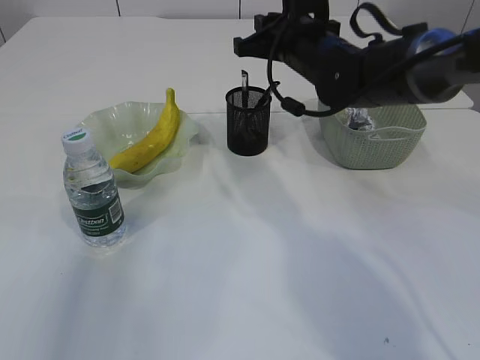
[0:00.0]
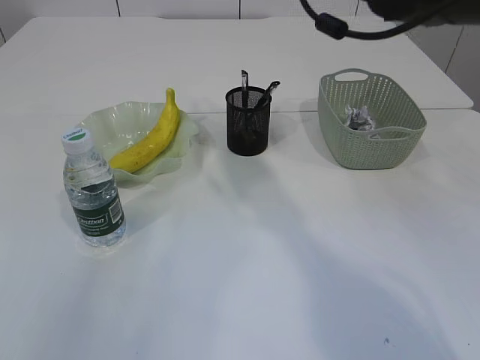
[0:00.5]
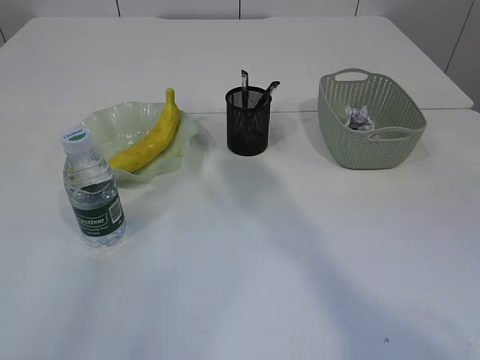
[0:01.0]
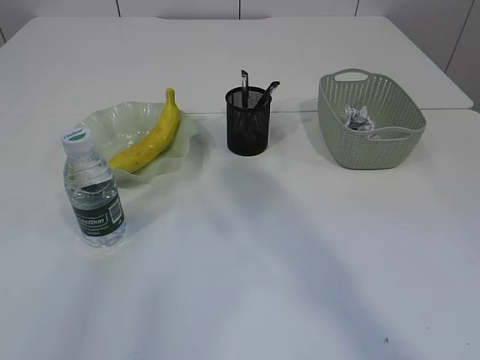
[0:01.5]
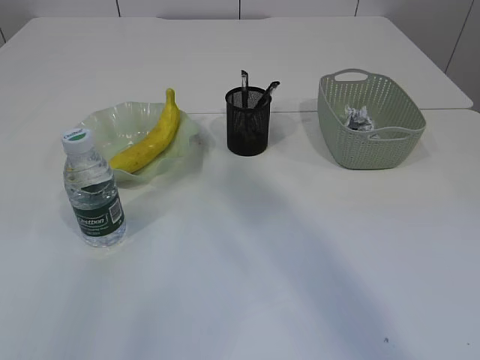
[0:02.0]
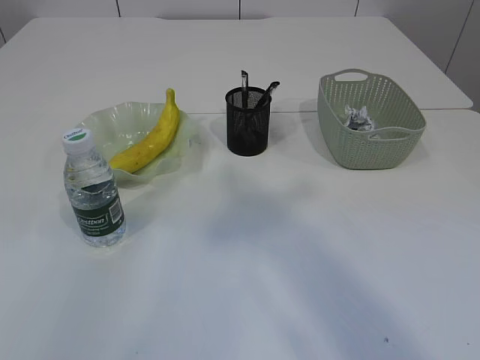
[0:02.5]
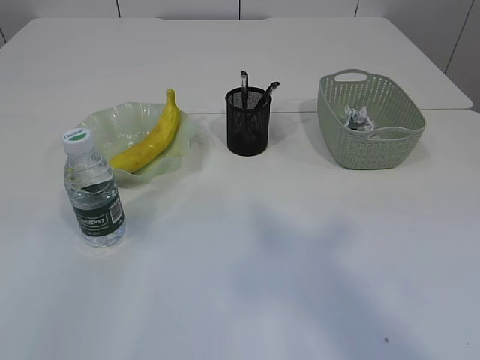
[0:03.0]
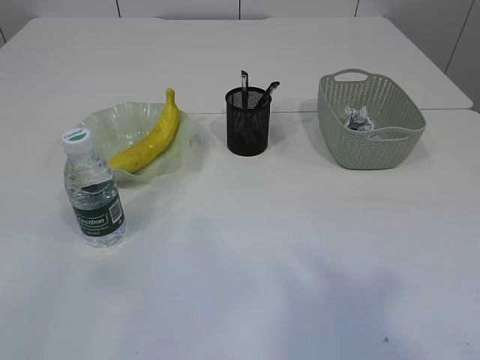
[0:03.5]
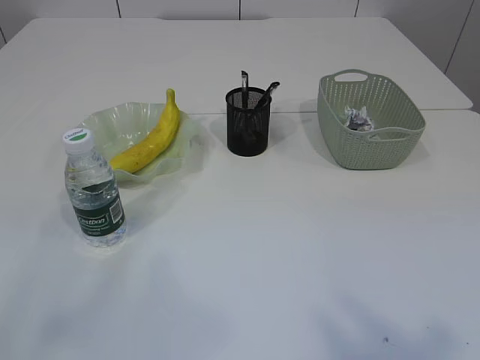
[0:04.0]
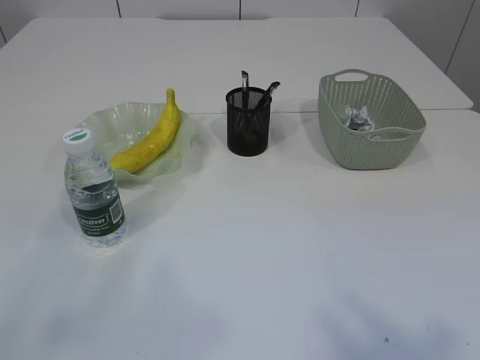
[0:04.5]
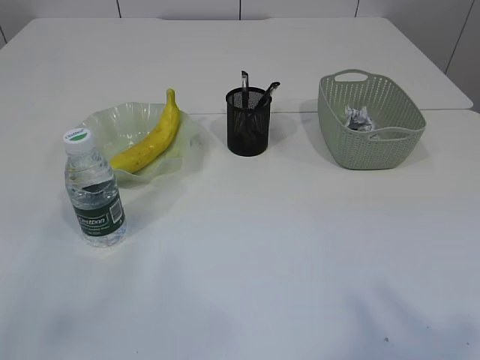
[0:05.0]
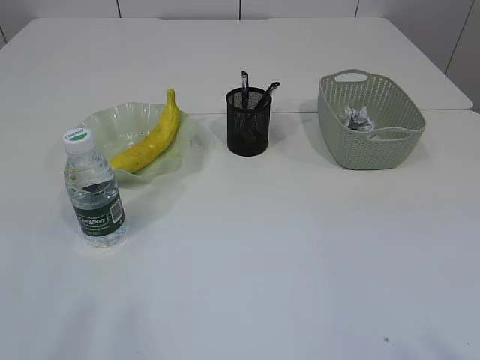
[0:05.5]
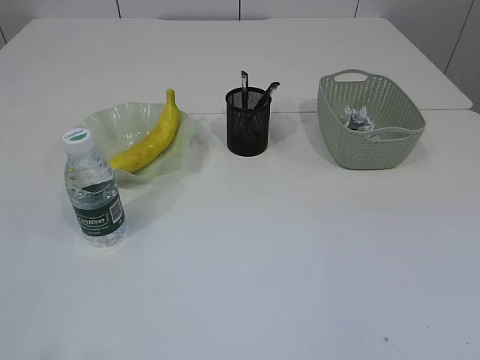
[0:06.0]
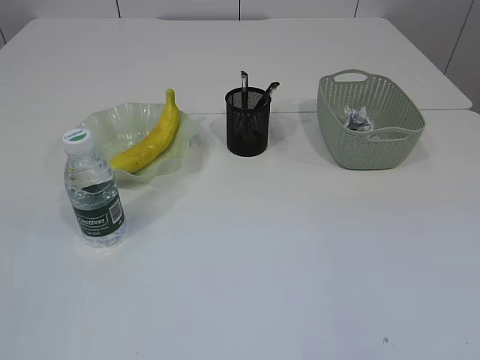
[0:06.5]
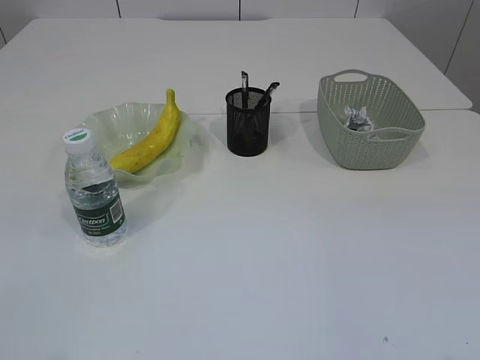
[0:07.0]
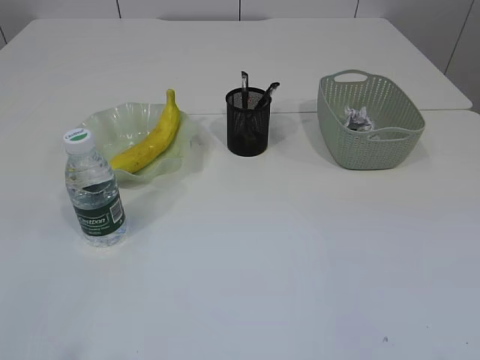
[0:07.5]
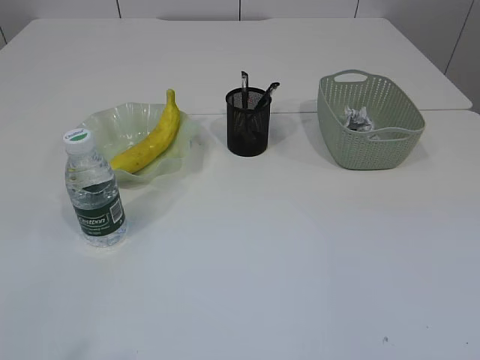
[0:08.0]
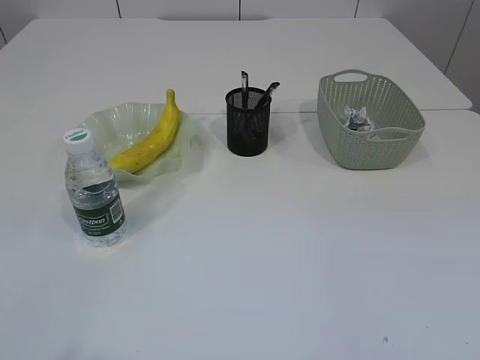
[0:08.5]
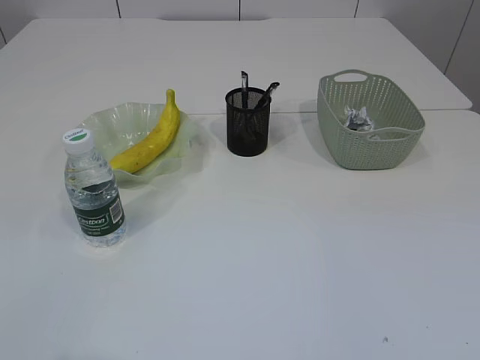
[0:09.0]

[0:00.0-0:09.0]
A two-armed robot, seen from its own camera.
0:00.0 to 0:02.0: The left gripper travels backward and upward by approximately 10 cm. Meanwhile the right gripper travels upward and backward by about 35 cm.
0:02.0 to 0:04.5: The left gripper travels backward by some 15 cm. Meanwhile the right gripper travels backward and to the right by some 25 cm, and opens.

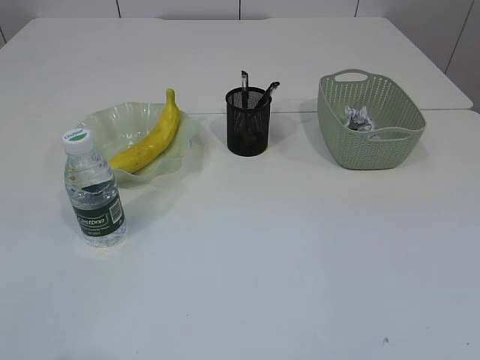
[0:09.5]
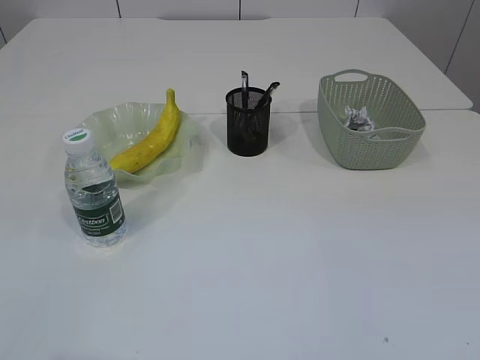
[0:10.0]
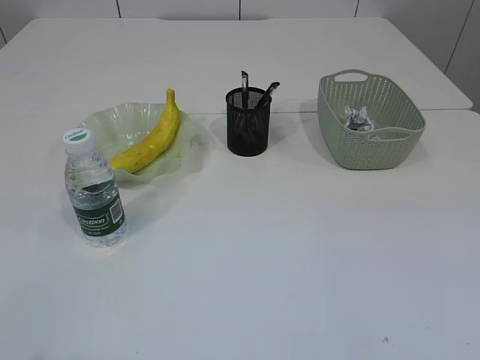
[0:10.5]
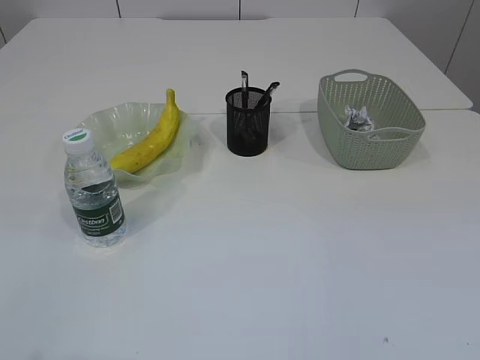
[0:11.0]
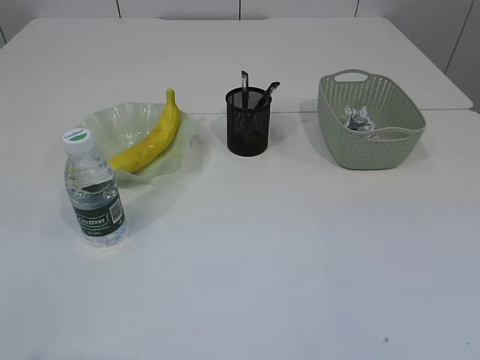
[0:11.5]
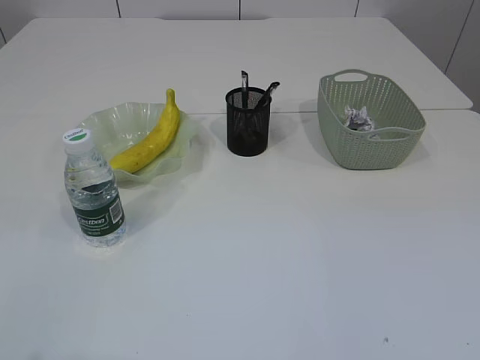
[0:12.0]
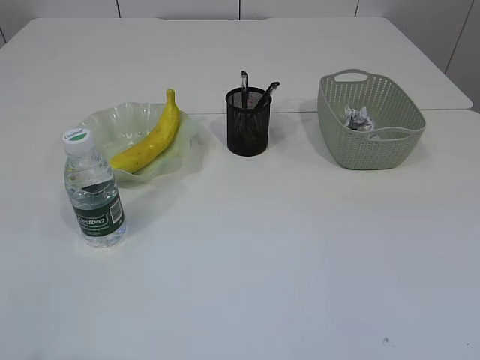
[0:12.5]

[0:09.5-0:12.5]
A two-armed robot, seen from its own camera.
0:11.0 to 0:12.5: Neither gripper changes place.

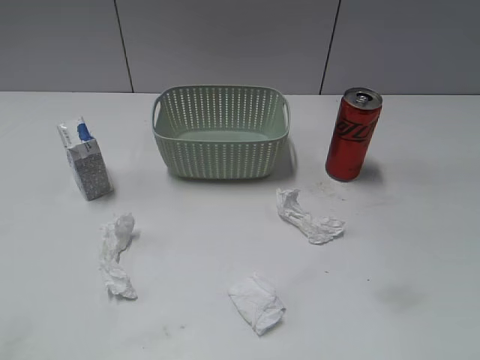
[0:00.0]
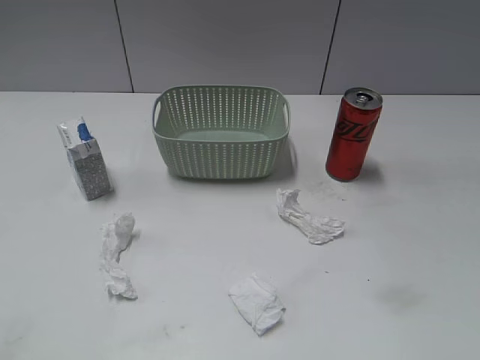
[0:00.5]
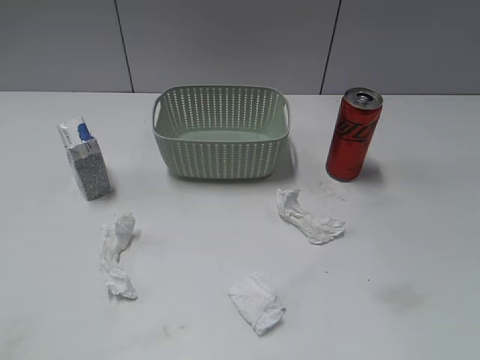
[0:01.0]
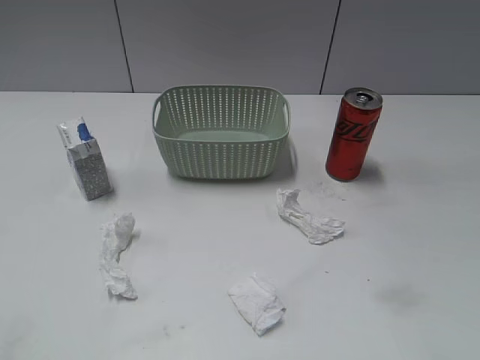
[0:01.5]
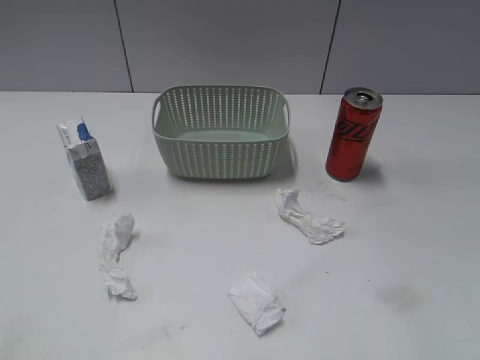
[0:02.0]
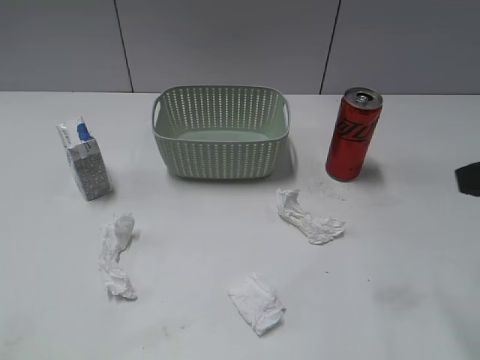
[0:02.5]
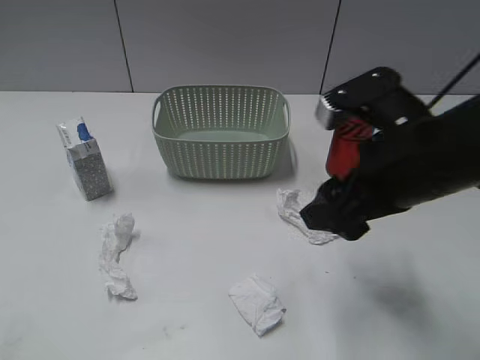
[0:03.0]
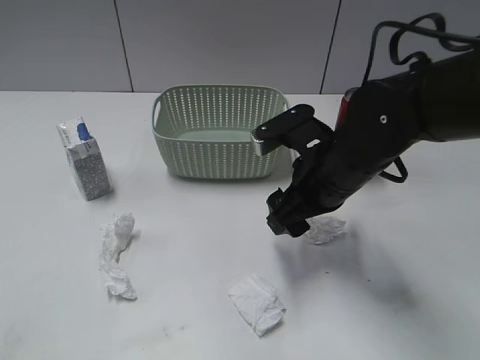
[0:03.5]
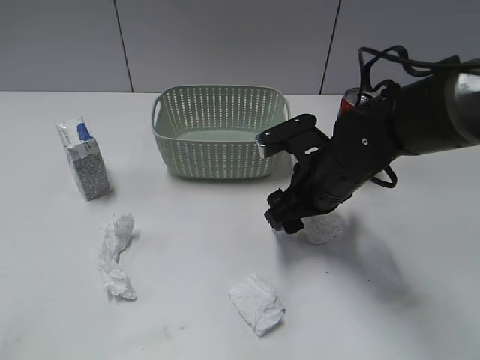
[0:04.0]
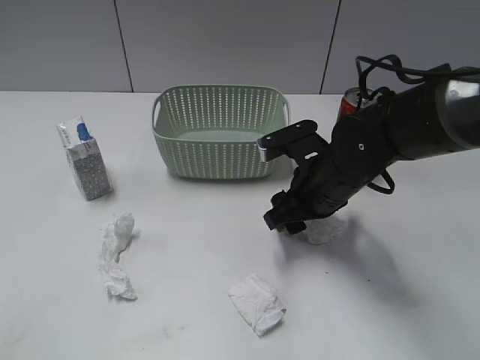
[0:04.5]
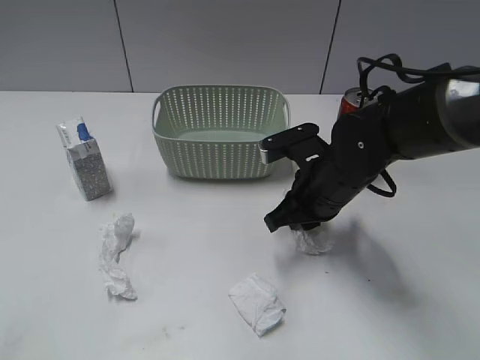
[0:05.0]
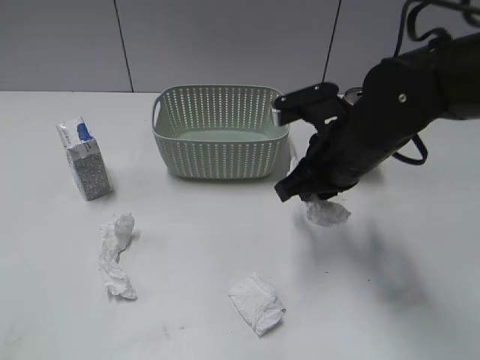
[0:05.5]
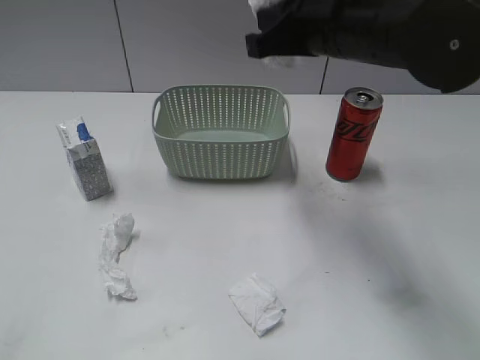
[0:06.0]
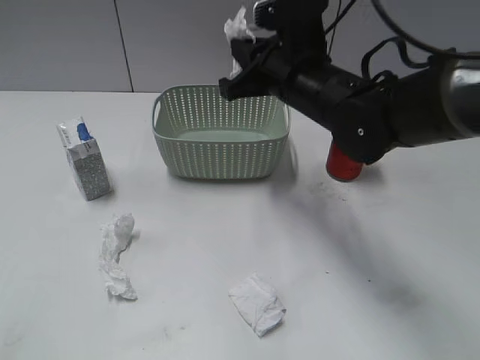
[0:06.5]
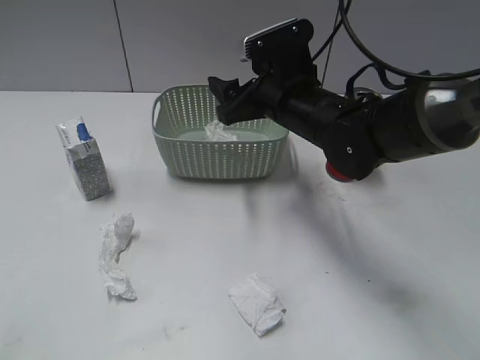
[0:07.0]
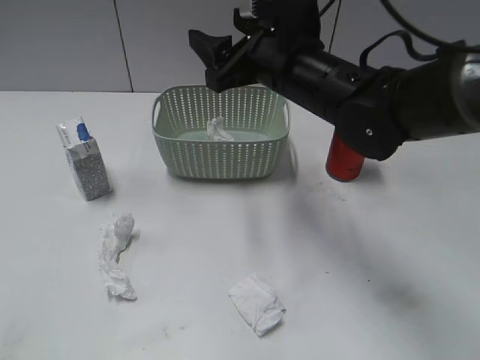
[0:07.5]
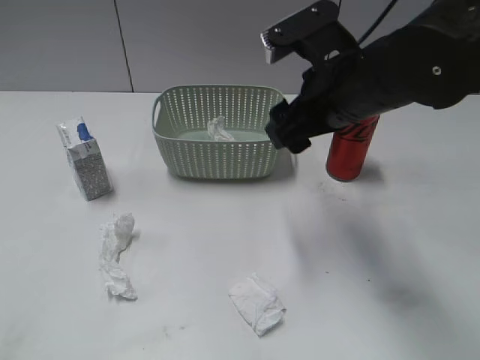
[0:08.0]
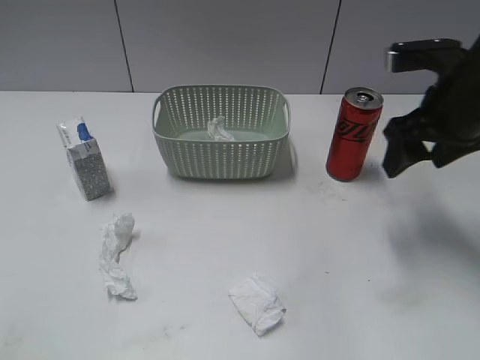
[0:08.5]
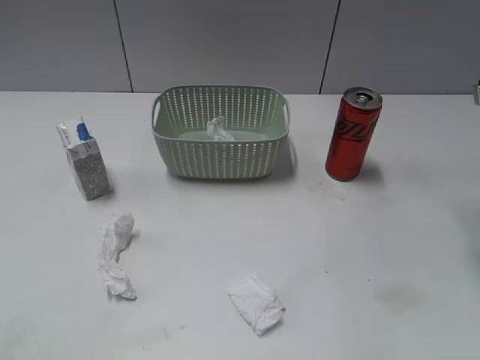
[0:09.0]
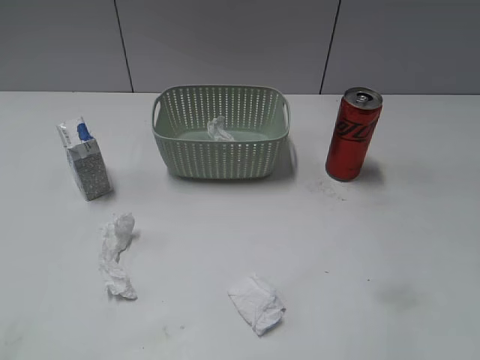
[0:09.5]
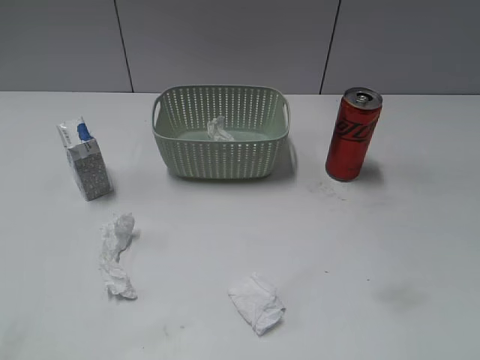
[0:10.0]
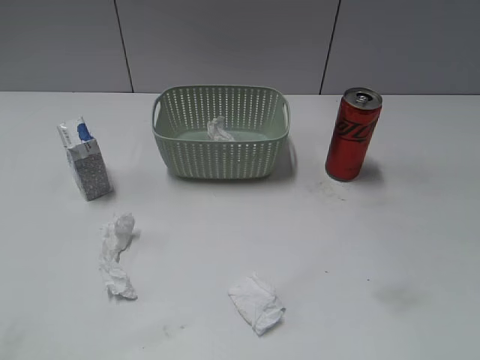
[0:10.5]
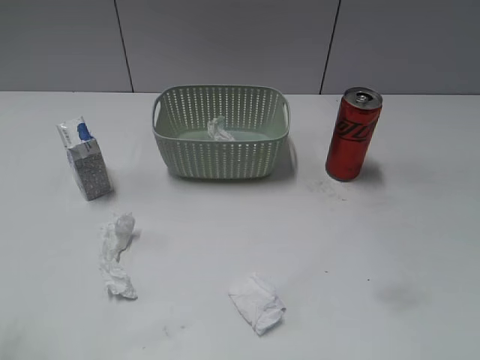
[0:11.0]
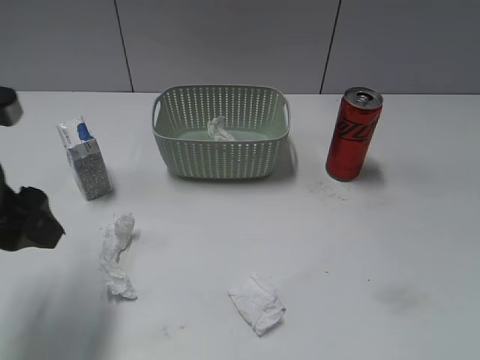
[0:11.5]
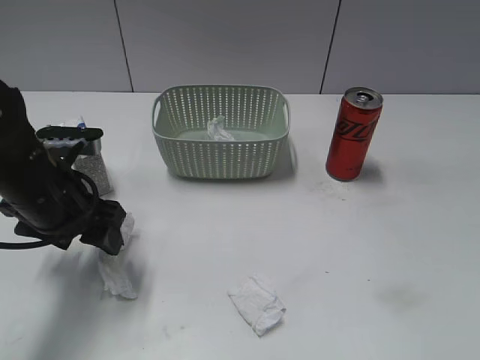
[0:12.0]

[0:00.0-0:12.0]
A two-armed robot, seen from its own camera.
Step, 0:02.5 to 0:05.0: Grasp the waste paper with right gripper.
Step, 0:05.5 to 0:07.0: Place the waste paper in the basket with right gripper.
0:02.0 to 0:04.0: The right gripper shifts some 35 cm forward, to the left and downward.
0:04.0 to 0:06.0: The right gripper is displaced upward by approximately 15 cm, and closes its fingers.
0:06.0 to 0:08.0: The right gripper shifts approximately 5 cm downward, and opens up.
0:08.0 to 0:10.0: The right gripper goes some 30 cm backward and to the right.
0:10.0 to 0:12.0: The left gripper moves forward, downward and to the right, about 35 cm.

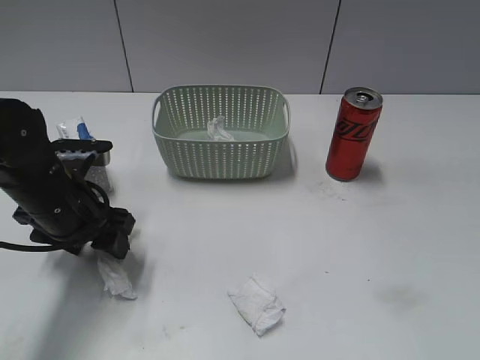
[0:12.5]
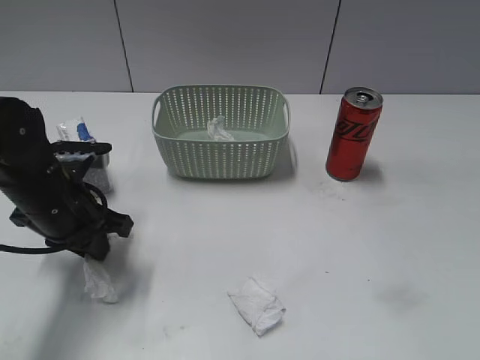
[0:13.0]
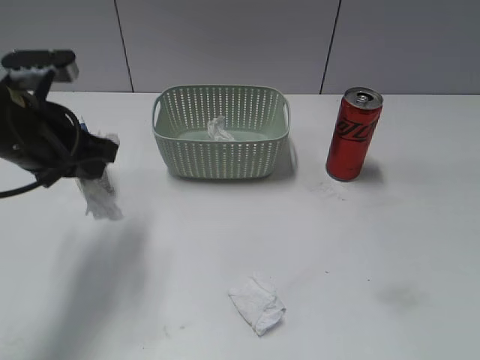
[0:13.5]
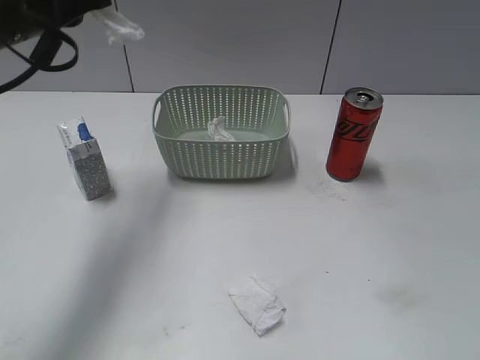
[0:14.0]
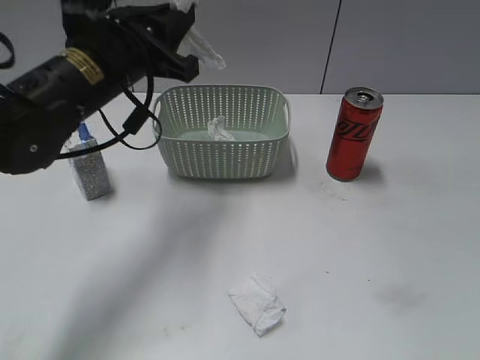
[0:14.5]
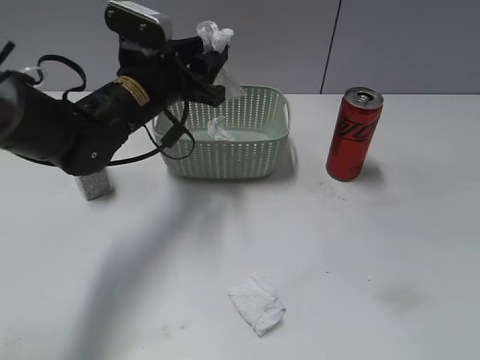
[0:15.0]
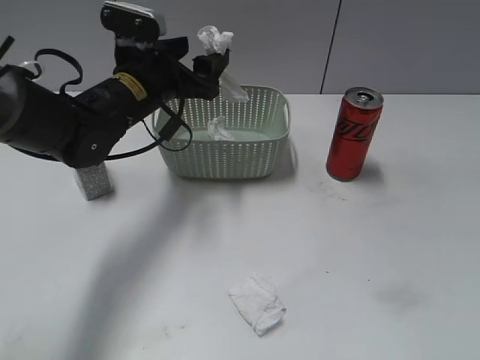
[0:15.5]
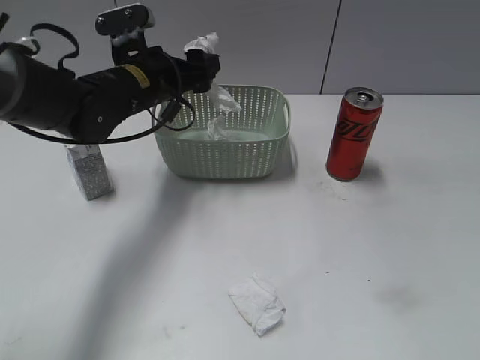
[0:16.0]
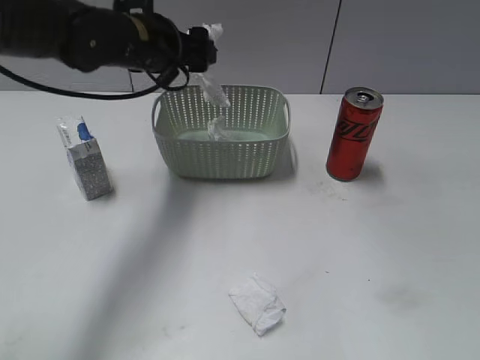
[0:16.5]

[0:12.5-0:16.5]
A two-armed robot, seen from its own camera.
0:12.5 to 0:14.5: The left gripper goes approximately 10 cm upward and to the right, and closes.
0:14.5 to 0:16.5: The left gripper moves forward, approximately 5 cm, and opens.
